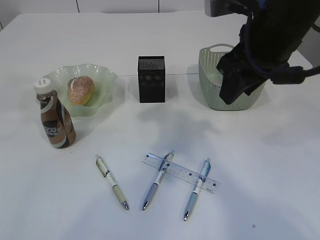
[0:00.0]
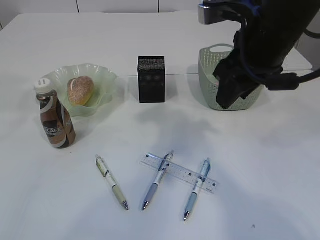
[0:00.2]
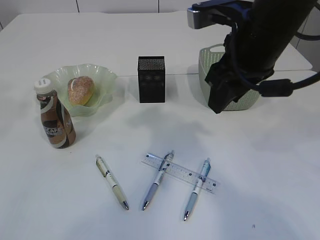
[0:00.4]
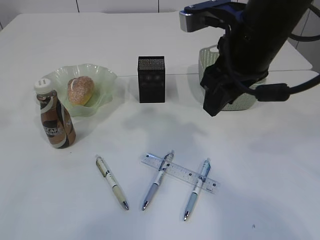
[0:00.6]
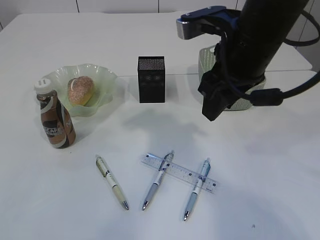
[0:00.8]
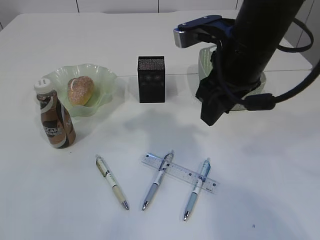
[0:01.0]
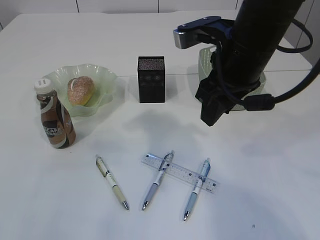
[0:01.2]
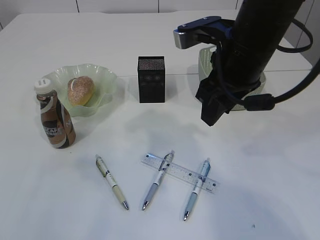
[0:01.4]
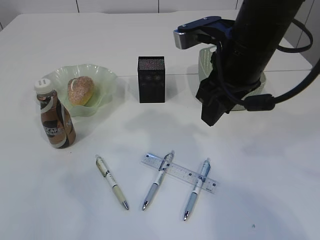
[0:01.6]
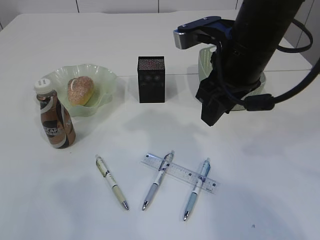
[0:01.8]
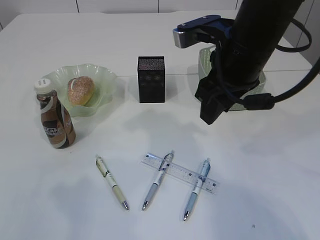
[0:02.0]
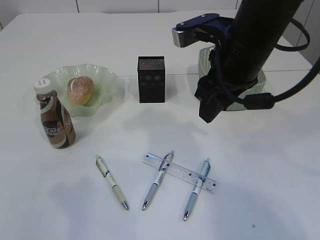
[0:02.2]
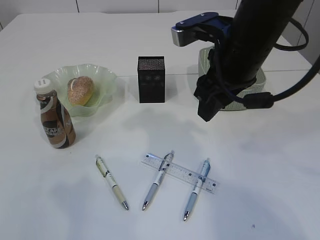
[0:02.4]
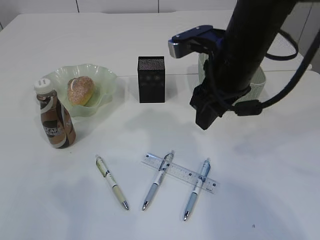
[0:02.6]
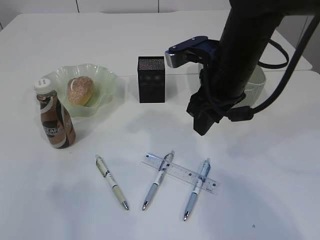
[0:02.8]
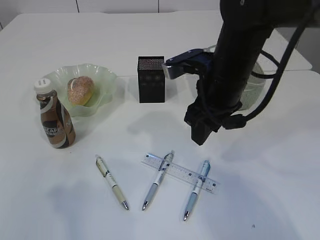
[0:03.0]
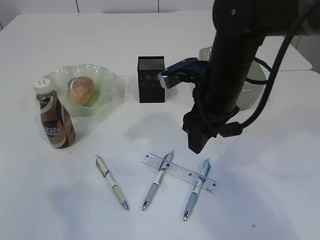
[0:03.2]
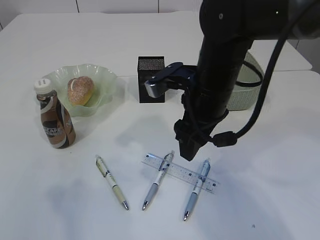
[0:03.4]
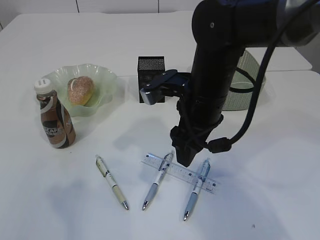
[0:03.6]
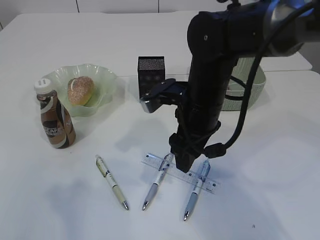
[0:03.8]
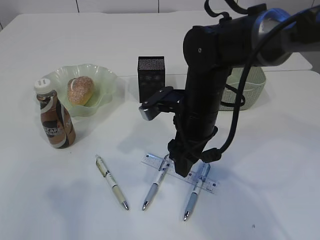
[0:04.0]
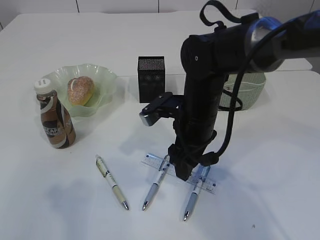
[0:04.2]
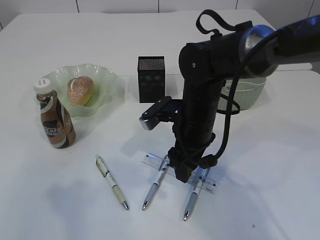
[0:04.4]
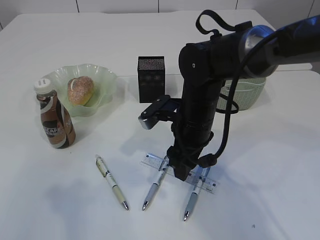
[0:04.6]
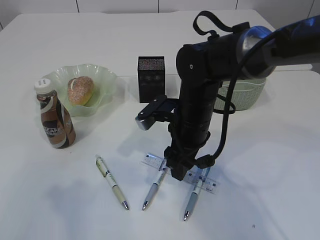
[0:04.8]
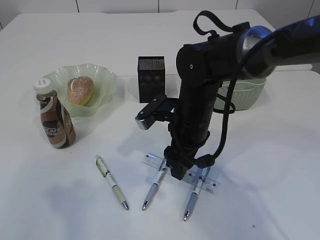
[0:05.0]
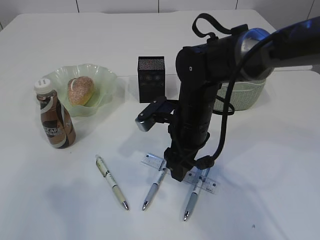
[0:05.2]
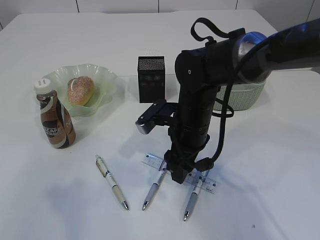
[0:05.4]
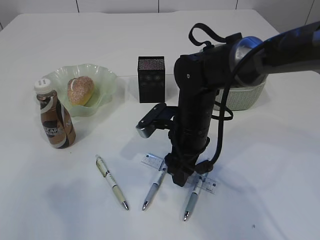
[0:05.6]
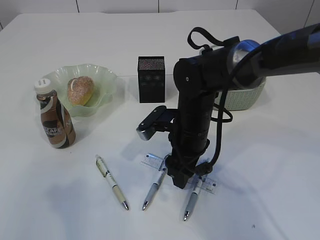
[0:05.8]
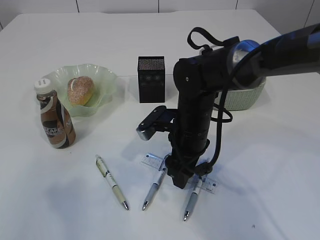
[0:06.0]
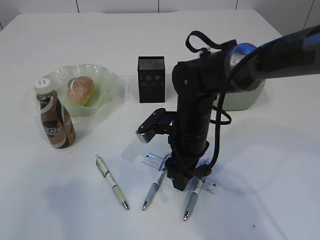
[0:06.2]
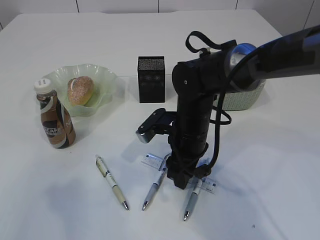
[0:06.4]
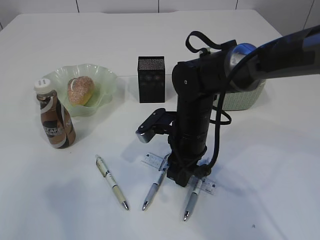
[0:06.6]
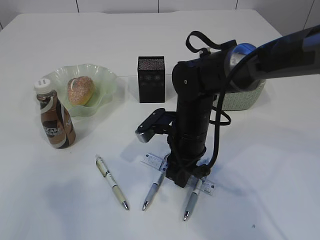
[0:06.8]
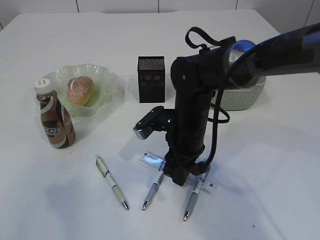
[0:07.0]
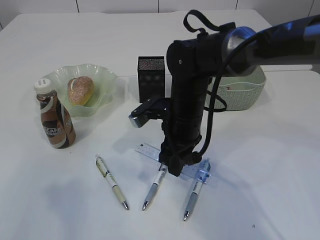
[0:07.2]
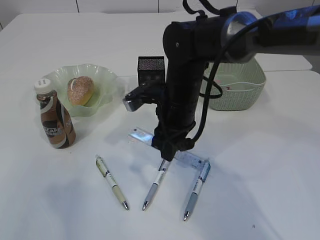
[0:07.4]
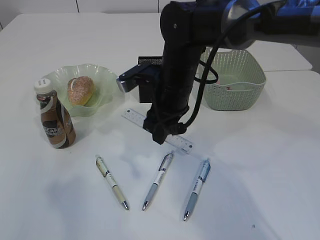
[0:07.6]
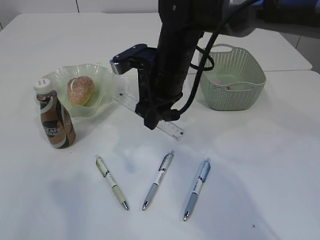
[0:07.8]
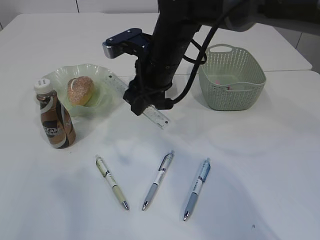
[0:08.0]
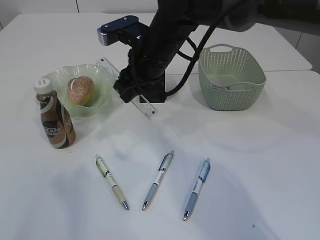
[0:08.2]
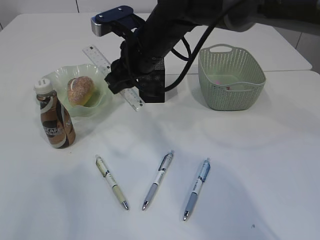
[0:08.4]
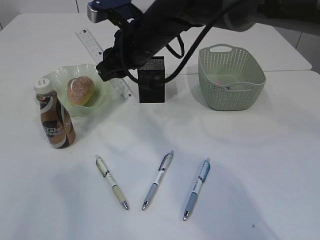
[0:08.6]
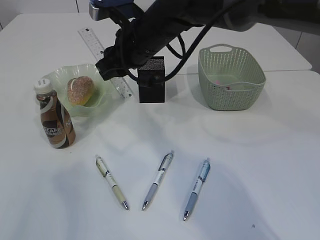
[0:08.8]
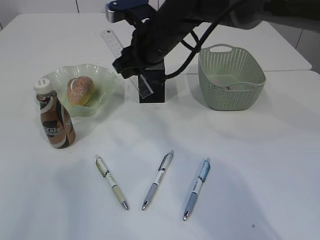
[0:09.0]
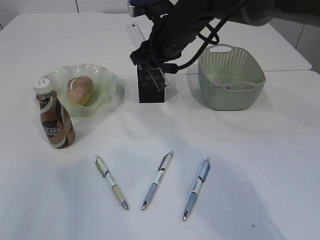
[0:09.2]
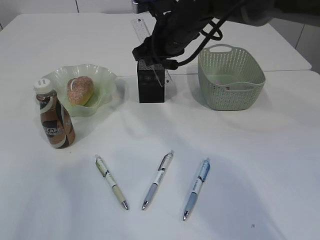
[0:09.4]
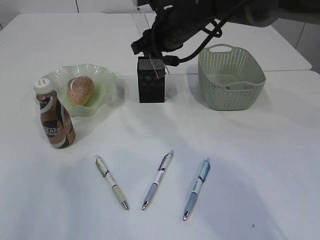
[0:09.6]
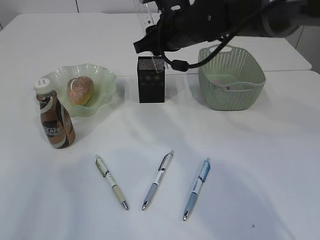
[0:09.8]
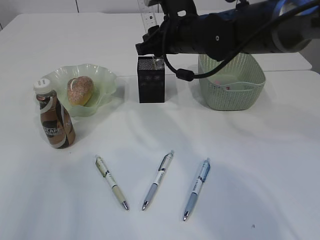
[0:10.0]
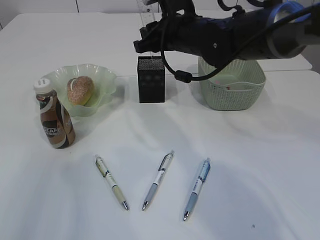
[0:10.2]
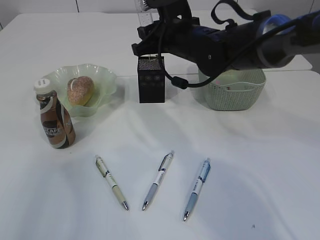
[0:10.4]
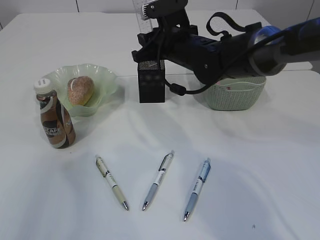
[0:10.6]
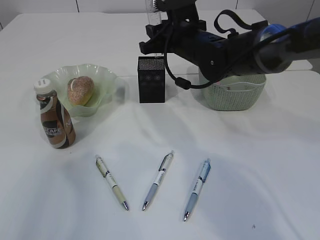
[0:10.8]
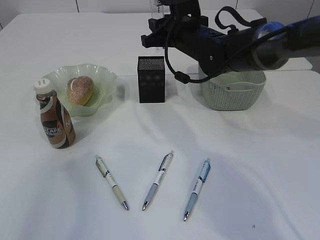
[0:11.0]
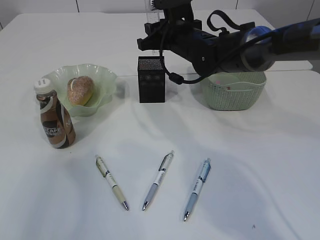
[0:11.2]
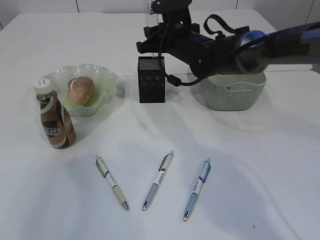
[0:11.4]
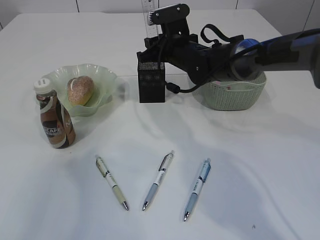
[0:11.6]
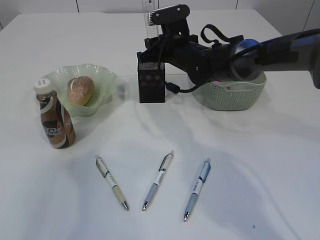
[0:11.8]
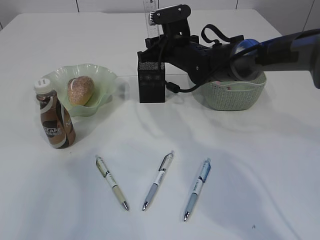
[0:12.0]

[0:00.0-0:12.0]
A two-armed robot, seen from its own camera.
Step, 0:00.0 to 0:07.2: pick up the ruler.
0:00.0 to 0:01.6: The left gripper is displaced backward, to the left and downward by about 25 cm.
0:01.6 to 0:03.0: The right gripper shifts by roughly 5 cm.
0:03.0 to 0:04.4: The right gripper goes approximately 10 cm downward.
0:04.4 to 0:06.0: The grippers move only a little.
0:06.0 to 0:07.6: The right gripper moves upward, approximately 5 cm, and closes its fingers.
0:07.6 to 0:09.0: The right gripper is displaced upward by roughly 5 cm.
0:09.0 to 0:10.4: The right gripper shifts approximately 5 cm to the right.
0:10.4 to 0:12.0: The right gripper moves downward and forward, roughly 10 cm.

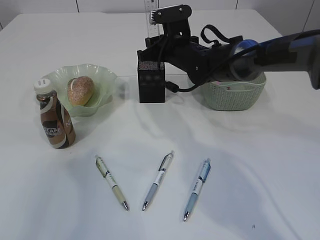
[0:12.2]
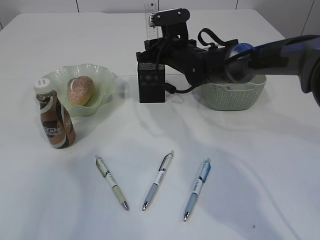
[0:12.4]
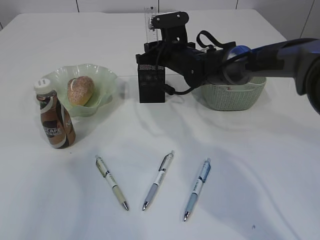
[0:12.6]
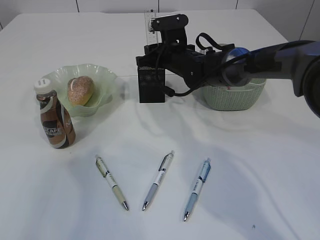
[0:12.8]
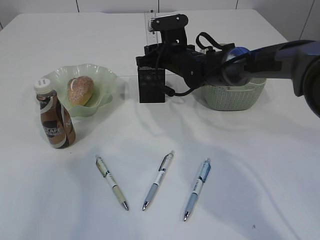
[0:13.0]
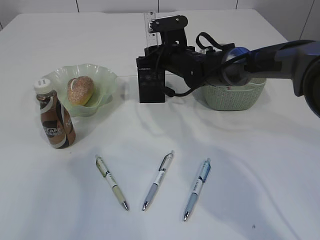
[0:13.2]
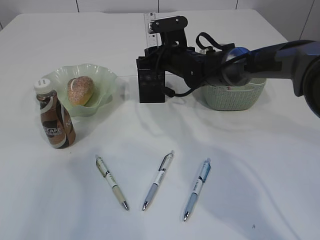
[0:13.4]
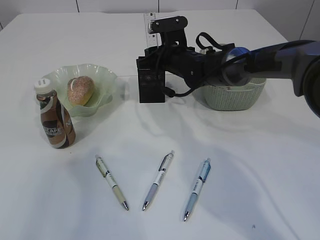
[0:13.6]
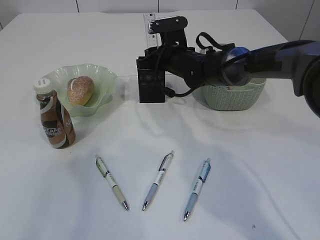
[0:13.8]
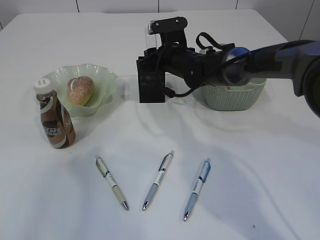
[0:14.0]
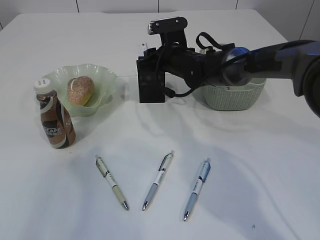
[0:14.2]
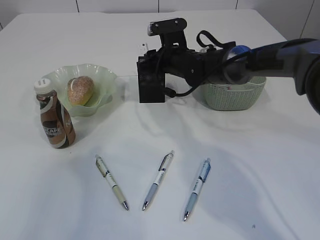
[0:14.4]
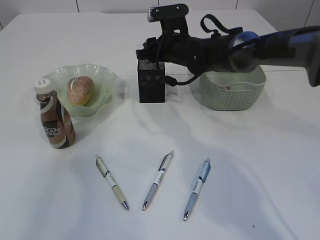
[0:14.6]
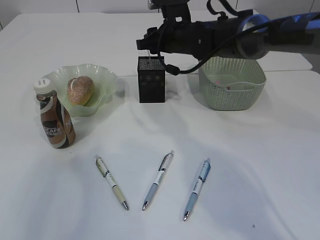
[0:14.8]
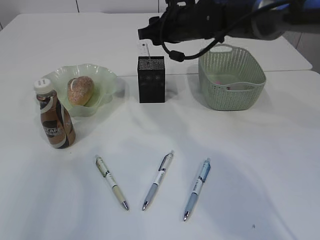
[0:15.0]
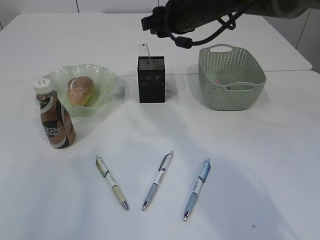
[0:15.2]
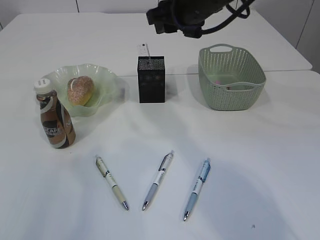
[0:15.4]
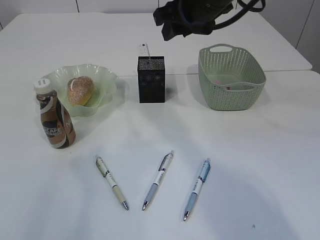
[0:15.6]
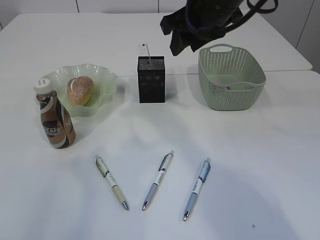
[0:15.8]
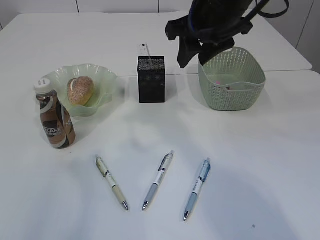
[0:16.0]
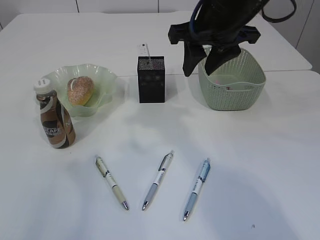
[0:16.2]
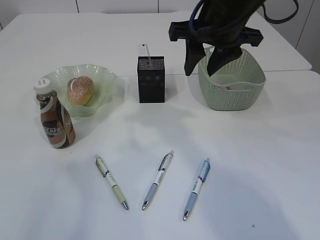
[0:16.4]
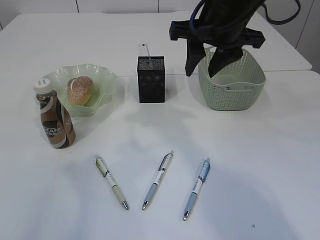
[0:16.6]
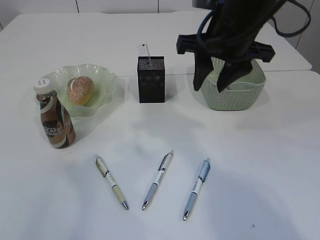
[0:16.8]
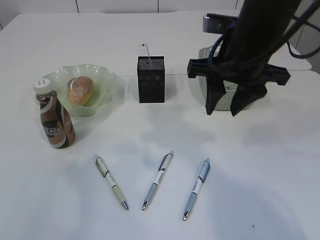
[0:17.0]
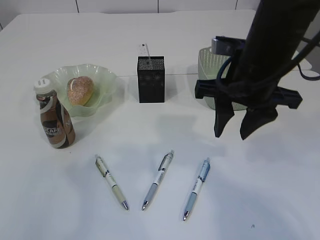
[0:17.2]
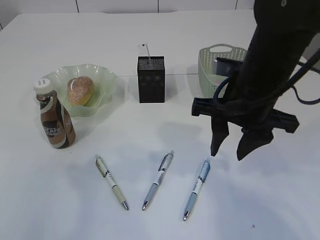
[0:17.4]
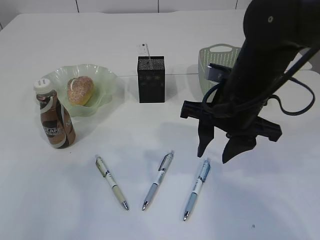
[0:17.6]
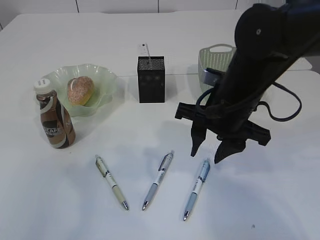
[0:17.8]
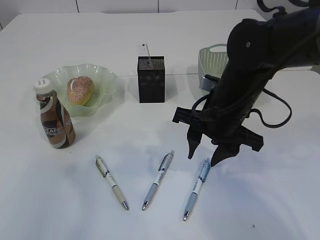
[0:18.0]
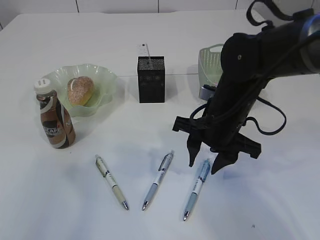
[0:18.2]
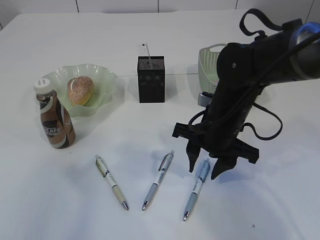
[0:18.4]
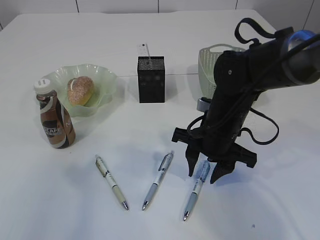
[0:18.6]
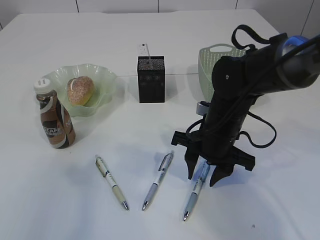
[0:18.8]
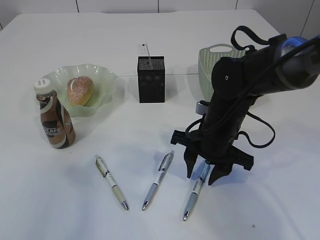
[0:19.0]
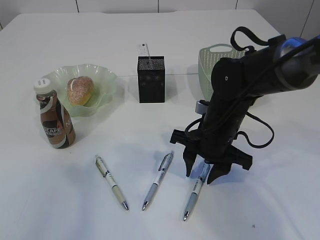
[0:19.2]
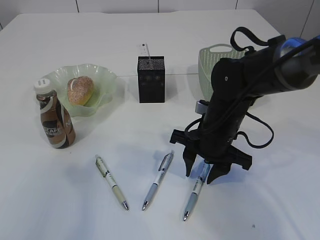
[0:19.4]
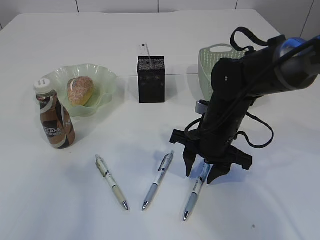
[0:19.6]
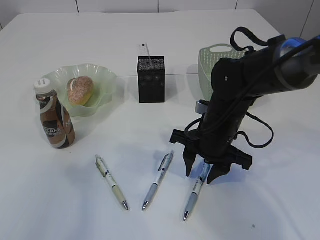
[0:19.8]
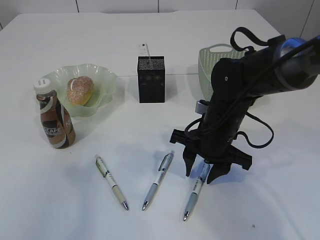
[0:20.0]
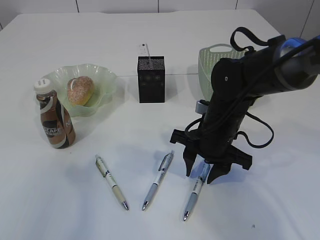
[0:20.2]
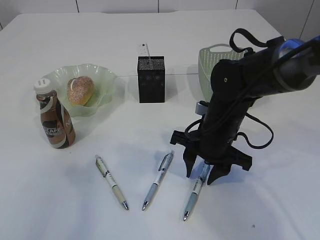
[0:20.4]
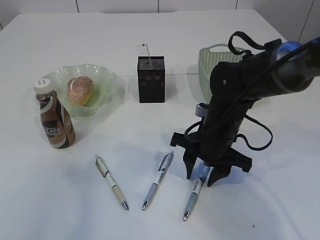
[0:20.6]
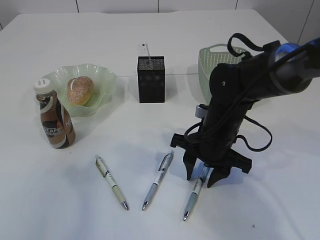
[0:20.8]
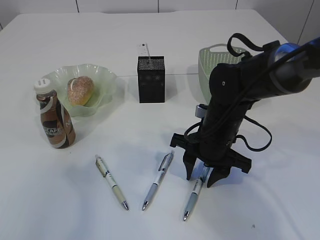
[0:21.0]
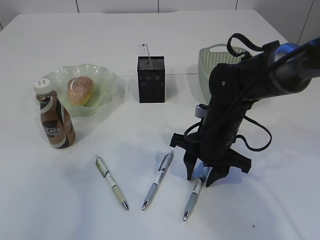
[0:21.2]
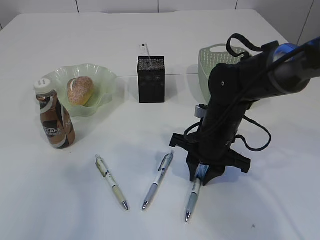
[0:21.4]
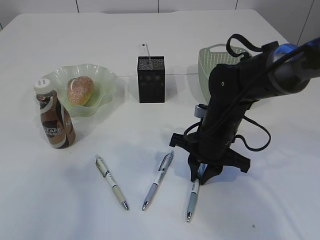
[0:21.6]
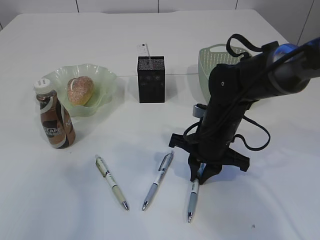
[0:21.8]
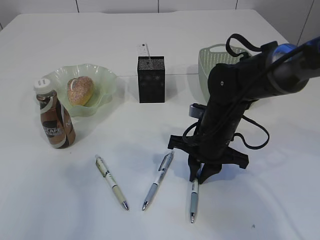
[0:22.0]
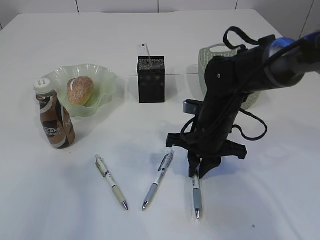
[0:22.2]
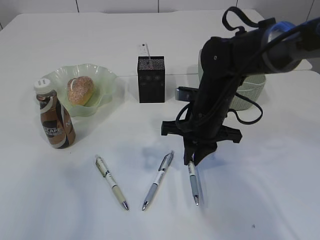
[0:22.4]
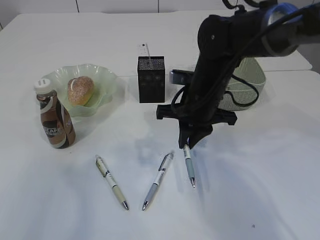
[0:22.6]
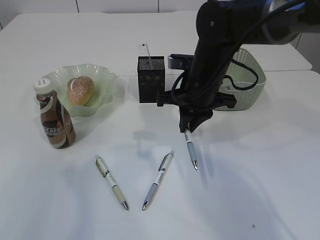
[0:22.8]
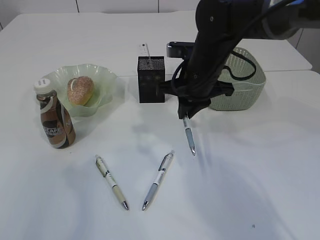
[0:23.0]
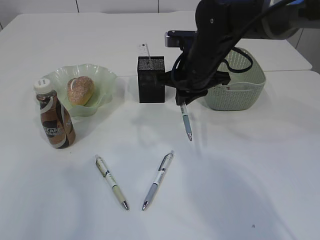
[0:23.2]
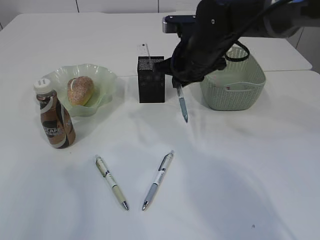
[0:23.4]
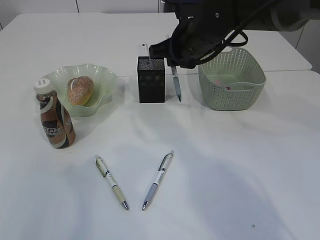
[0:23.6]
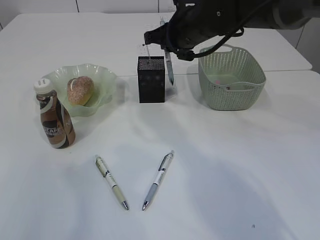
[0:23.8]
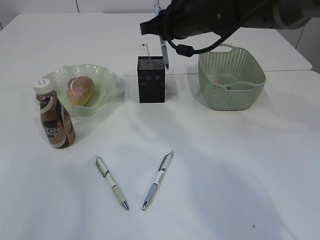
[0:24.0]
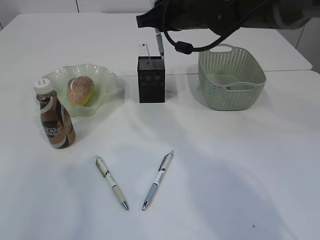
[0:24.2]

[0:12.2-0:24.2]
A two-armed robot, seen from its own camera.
Step, 0:12.2 to 0:15.0: Place the ruler into the pen holder.
Step, 0:15.2 to 0:22.6: Pick up the pen with right arm.
0:12.2 to 0:13.8: The grippers move only a little.
0:13.8 to 0:15.2: The right gripper goes approximately 10 cm upward.
0:15.2 to 0:16.6: The right gripper moves backward, roughly 10 cm.
0:16.6 to 0:18.2: The right gripper moves downward, roughly 15 cm.
0:18.2 to 0:19.8: The grippers make only small movements.
0:19.8 to 0:21.2: Both grippers stay put.
0:21.2 to 0:22.6: The right gripper heads upward, covering approximately 5 cm, and closes.
0:22.6 to 0:24.2: The right gripper heads upward and forward, covering approximately 15 cm.
